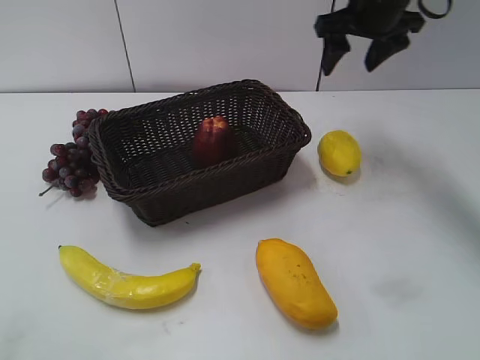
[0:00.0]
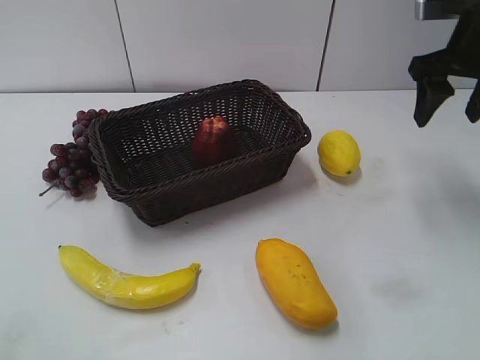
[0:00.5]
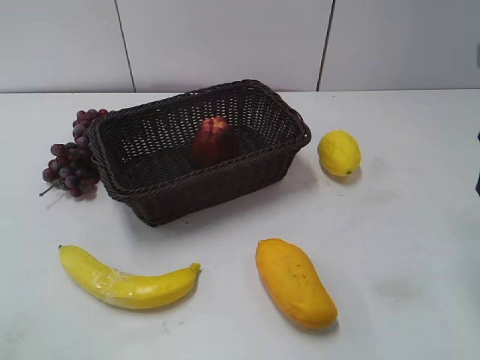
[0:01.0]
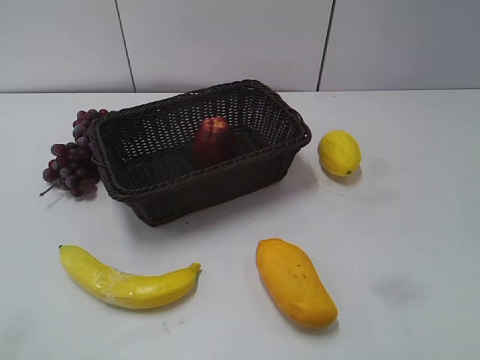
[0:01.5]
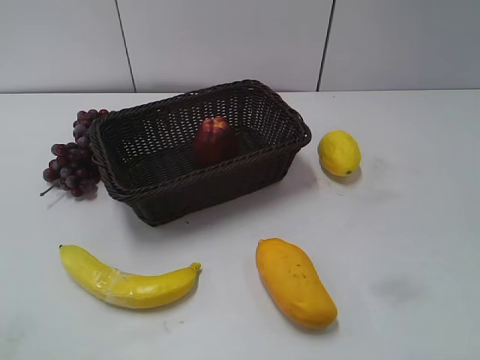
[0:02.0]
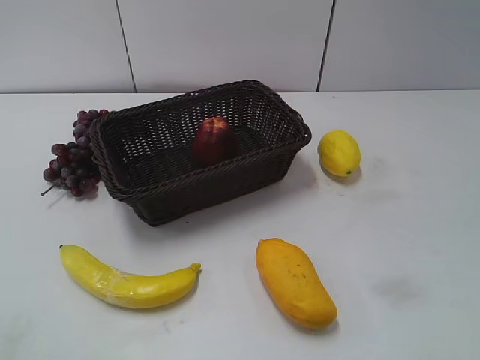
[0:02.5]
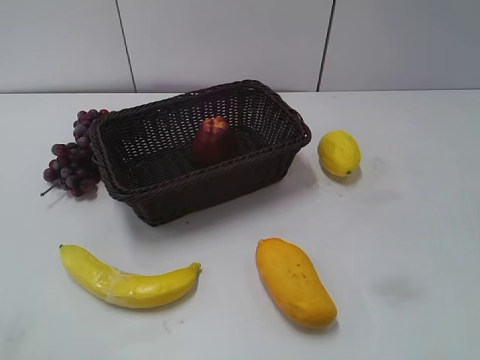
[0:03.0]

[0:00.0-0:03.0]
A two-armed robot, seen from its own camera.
0:00.0 to 0:01.5: The right gripper shifts some 35 cm backward.
